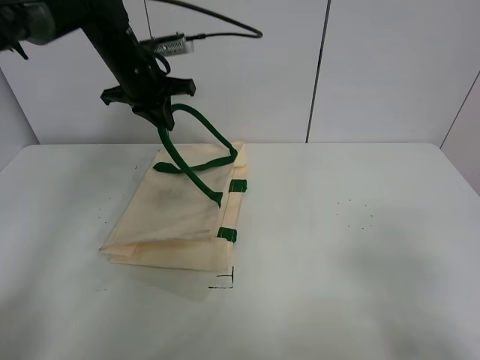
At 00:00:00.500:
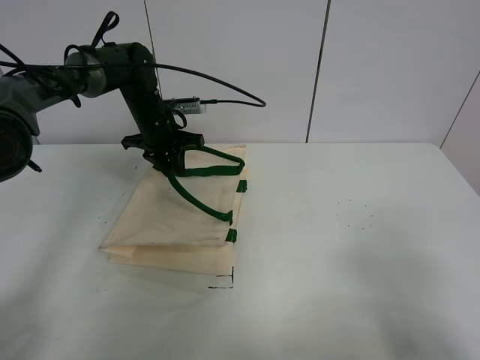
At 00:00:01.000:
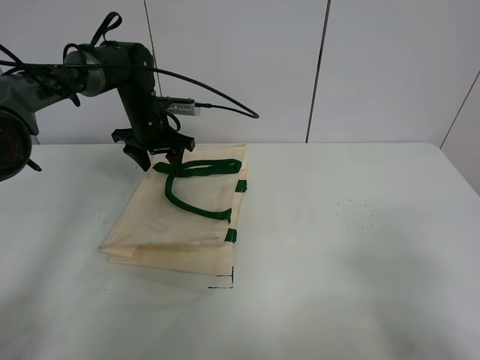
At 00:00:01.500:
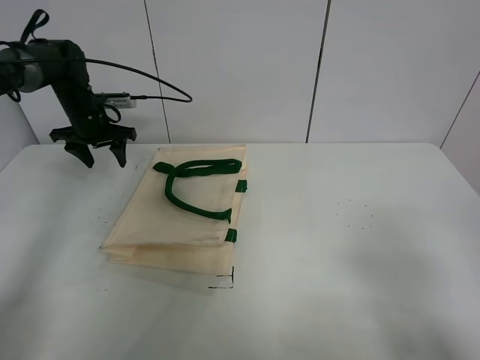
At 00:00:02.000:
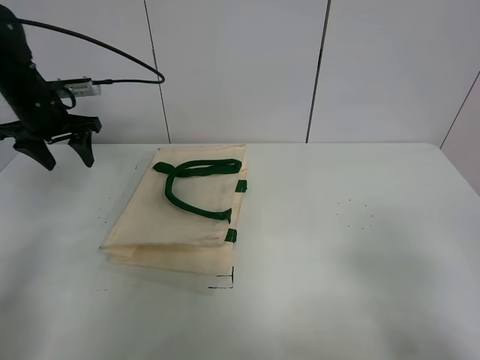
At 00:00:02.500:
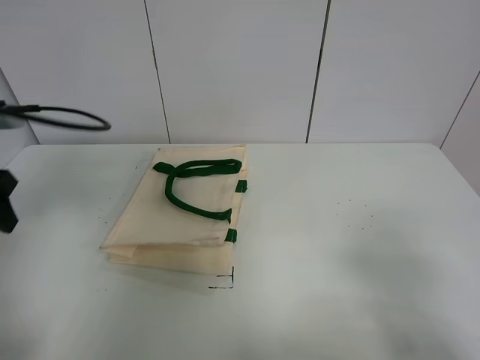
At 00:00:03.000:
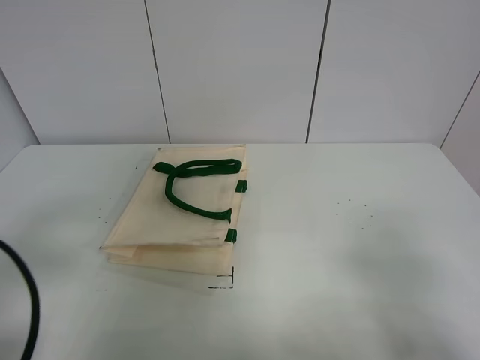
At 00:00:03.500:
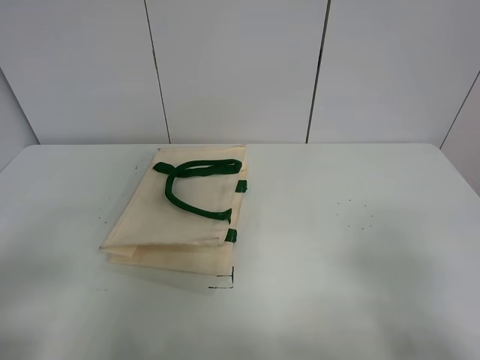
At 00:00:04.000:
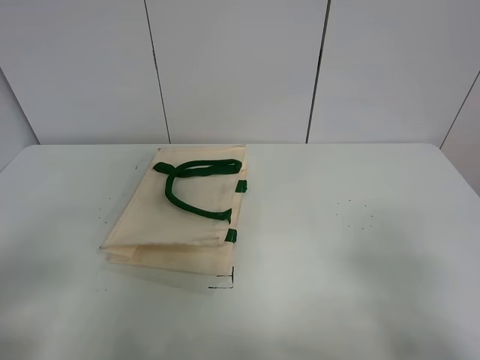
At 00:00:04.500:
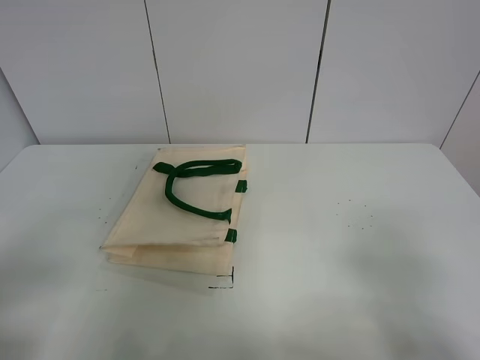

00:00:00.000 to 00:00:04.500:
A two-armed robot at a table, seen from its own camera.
Task of the whole recording: open the white linen bag and put the peach in the bag.
00:00:00.000 to 00:00:02.000: The left gripper travels to the left by approximately 15 cm, and opens its fingers.
00:00:02.000 to 00:00:04.500: The left gripper goes approximately 40 cm backward.
